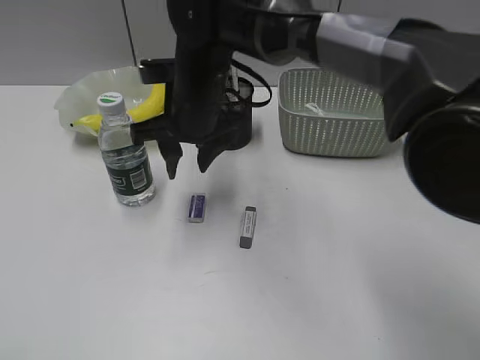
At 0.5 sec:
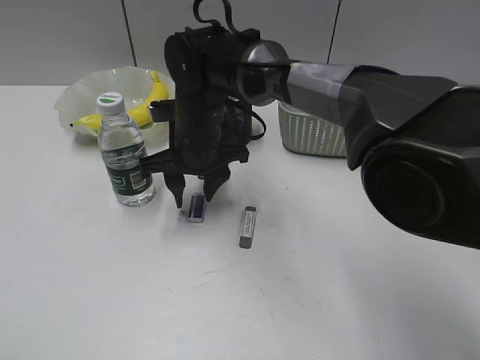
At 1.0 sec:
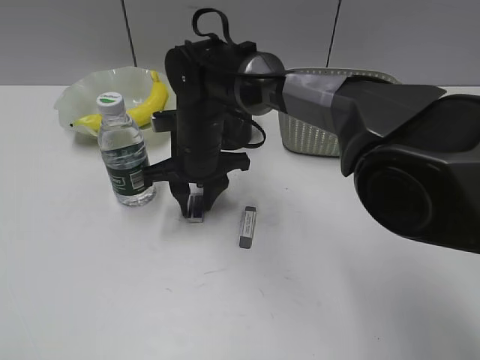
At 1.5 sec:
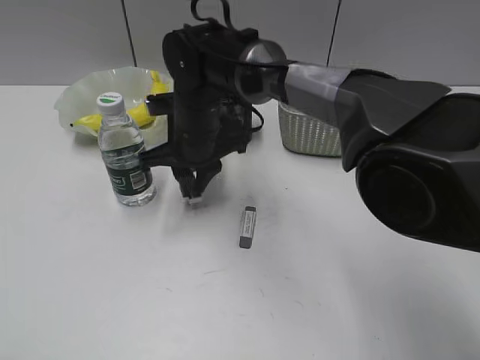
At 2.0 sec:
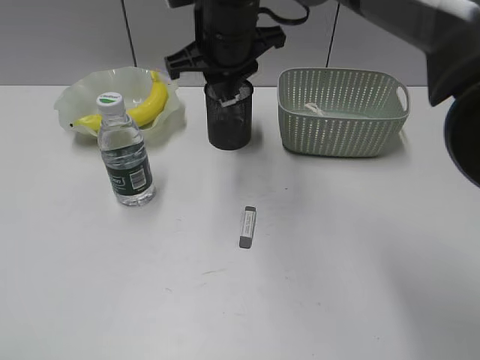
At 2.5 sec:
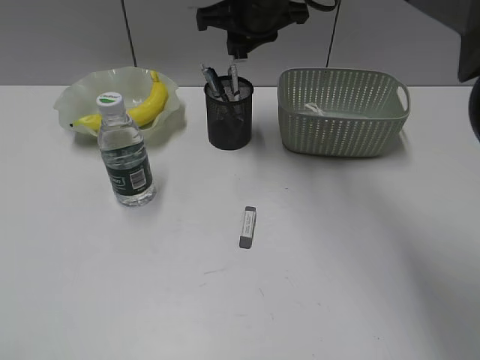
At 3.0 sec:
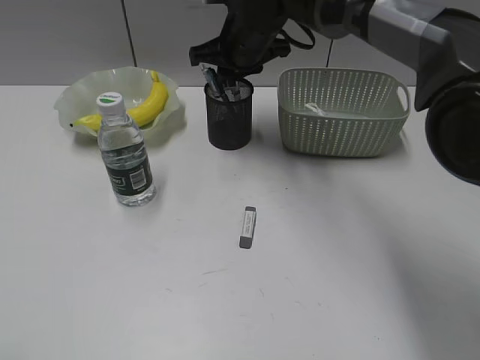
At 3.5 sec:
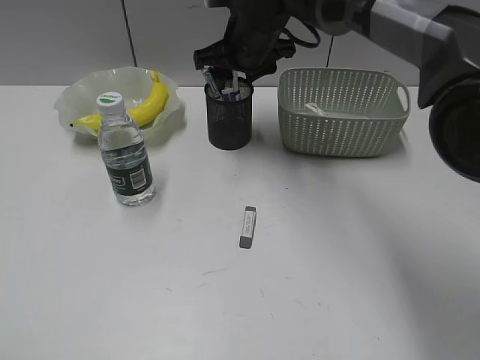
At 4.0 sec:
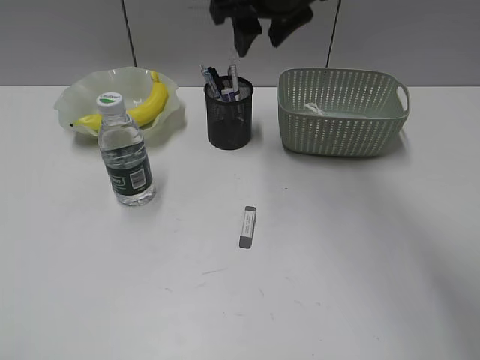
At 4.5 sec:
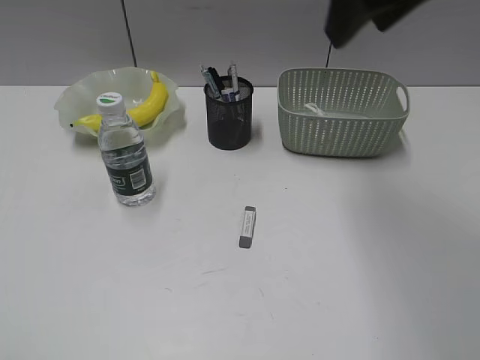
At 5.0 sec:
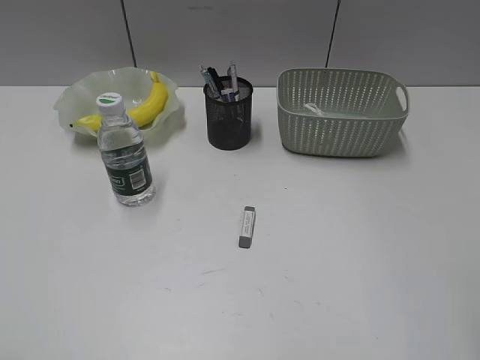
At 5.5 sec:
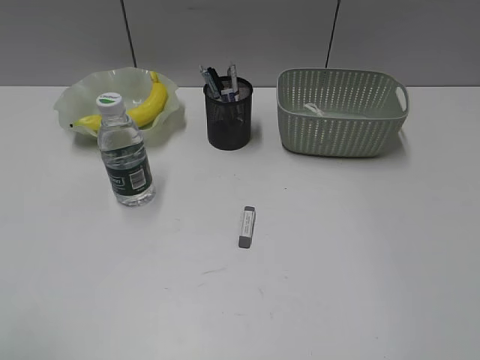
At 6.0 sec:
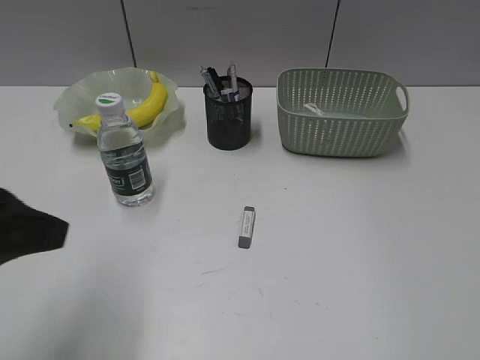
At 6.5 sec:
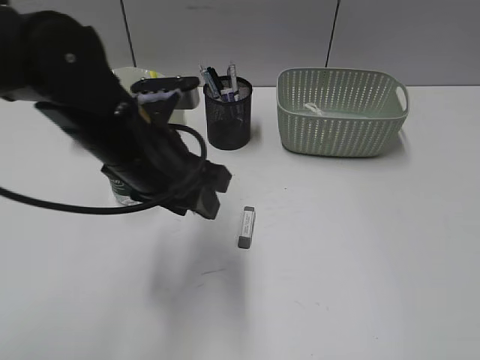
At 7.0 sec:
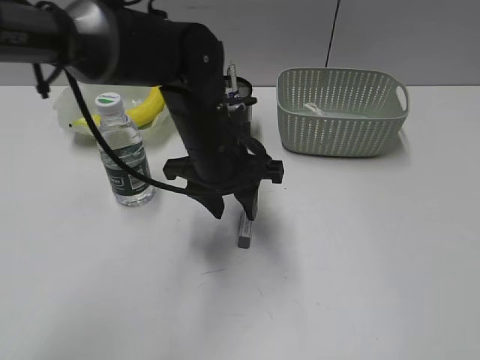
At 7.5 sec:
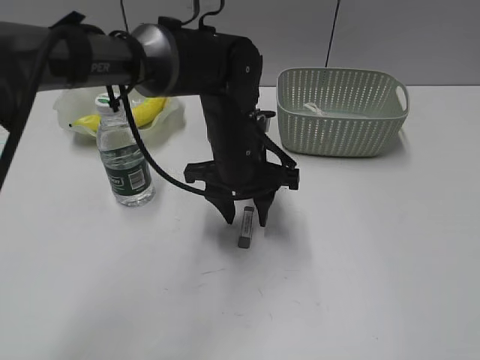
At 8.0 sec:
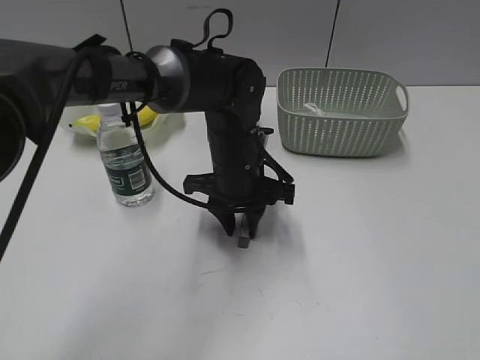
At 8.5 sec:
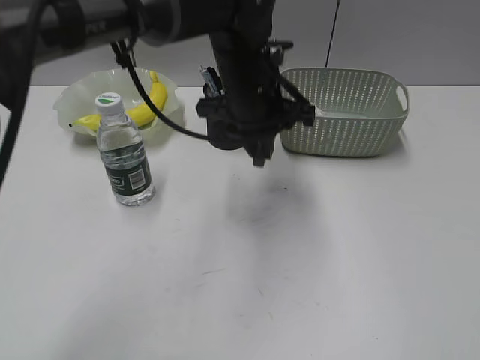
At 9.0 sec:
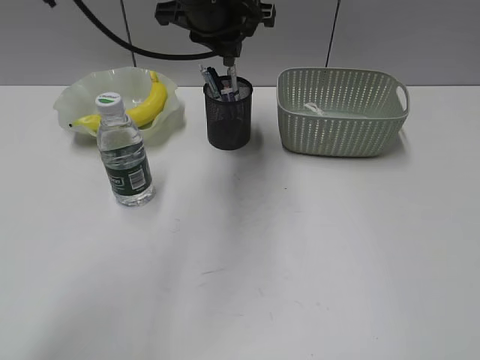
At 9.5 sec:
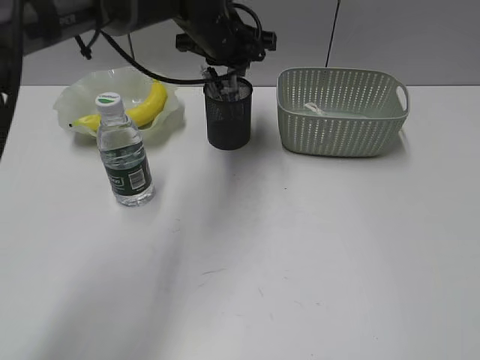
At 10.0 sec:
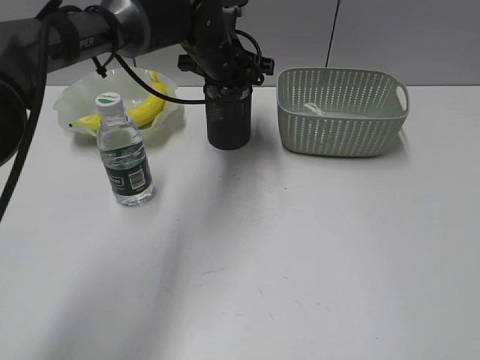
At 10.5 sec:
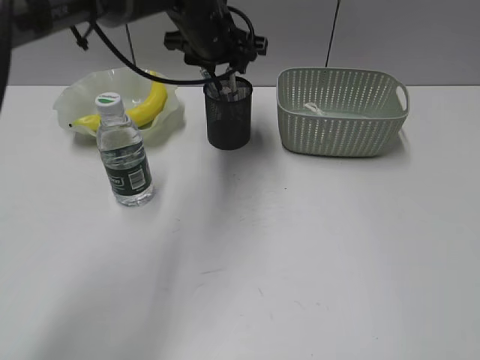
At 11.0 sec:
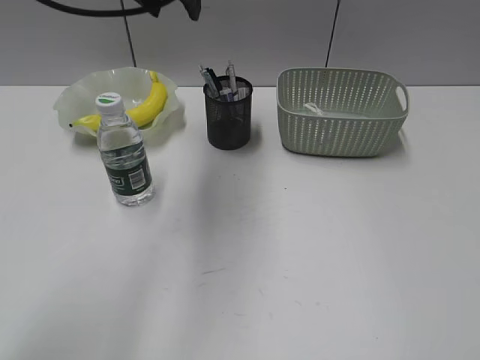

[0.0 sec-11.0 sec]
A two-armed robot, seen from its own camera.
Step, 1.5 sec to 3.0 sec: Place the eraser in pen holder with right gripper.
Step, 3.5 sec to 8.0 sec: Grasp the eraser with left gripper.
Step, 8.5 sec to 10.0 sec: Place the eraser in pen holder with left gripper.
0.0 sec to 2.0 sec: The right gripper travels upward by approximately 5 cm, and closes.
2.0 sec to 3.5 sec: The right gripper shifts roughly 5 cm forward, and opens its fingers.
3.5 sec to 5.5 sec: The right gripper heads backward and to the right, covering about 50 cm.
5.5 sec to 7.5 sec: The left gripper shifts roughly 50 cm forward, to the right and downward.
7.5 sec to 9.0 sec: The left gripper travels upward and forward by some 15 cm, and closes its fingers.
9.0 sec to 11.0 sec: The left gripper is displaced upward by some 5 cm, and opens.

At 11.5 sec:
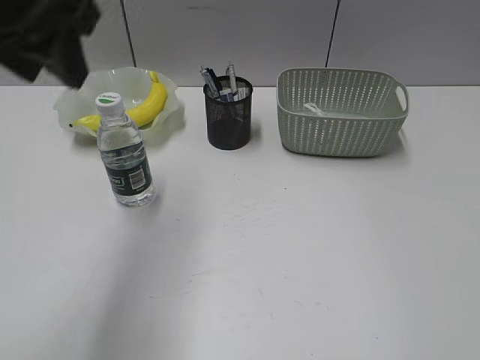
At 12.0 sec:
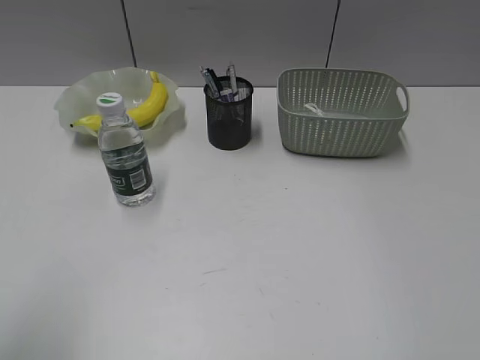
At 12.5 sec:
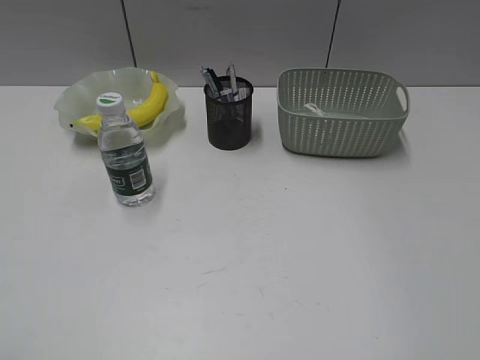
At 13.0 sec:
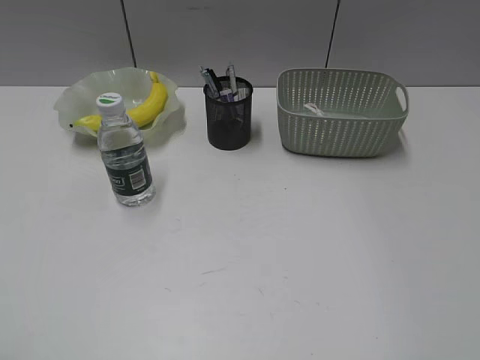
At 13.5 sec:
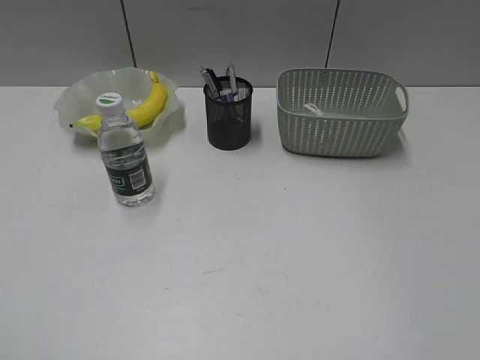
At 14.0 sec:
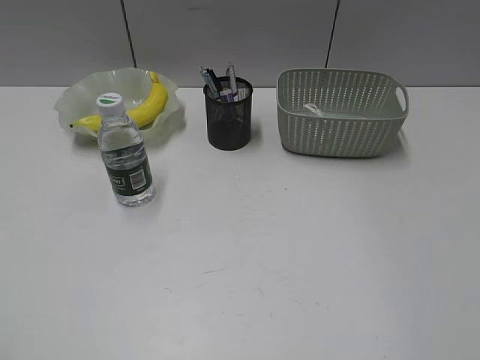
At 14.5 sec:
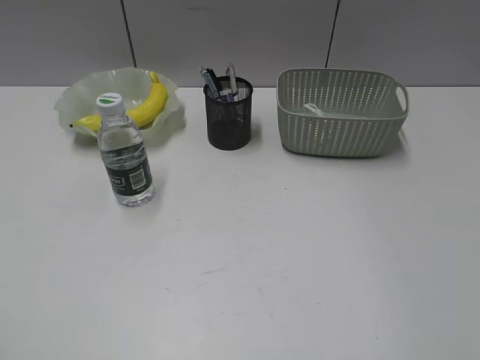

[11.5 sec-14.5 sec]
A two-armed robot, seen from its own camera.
11.5 sec to 13.0 sec: The left gripper moves backward and to the left, about 30 cm.

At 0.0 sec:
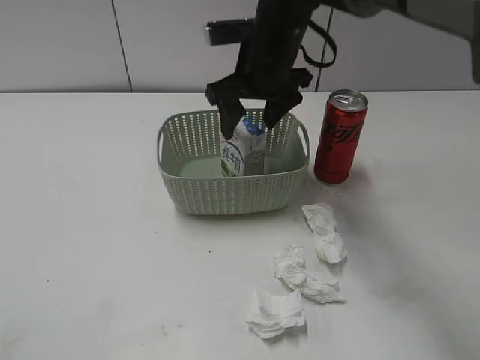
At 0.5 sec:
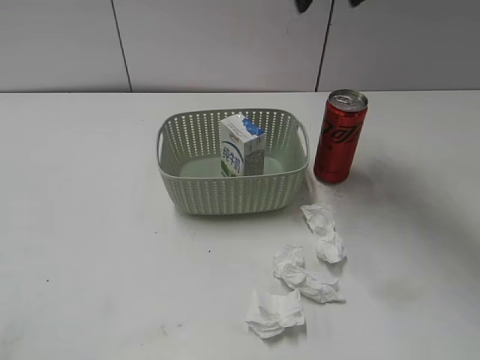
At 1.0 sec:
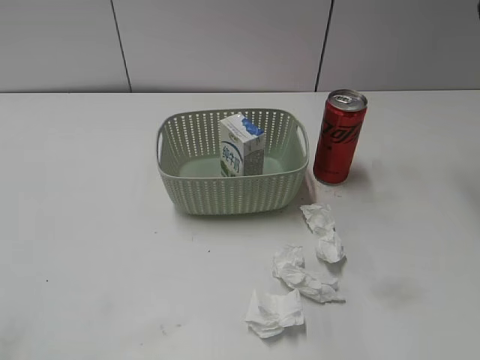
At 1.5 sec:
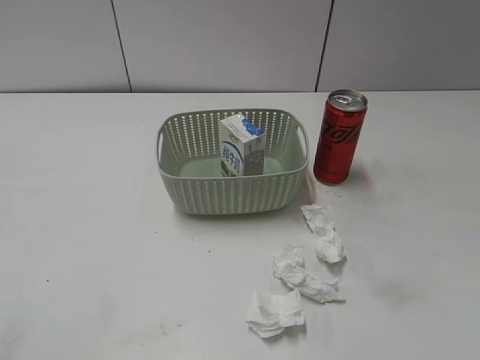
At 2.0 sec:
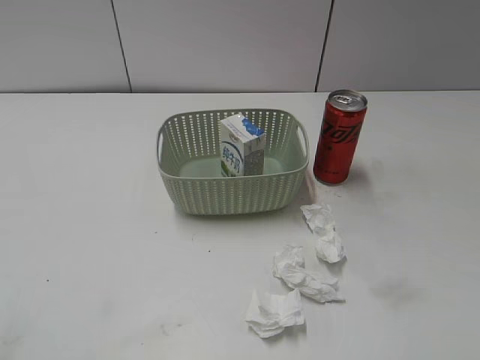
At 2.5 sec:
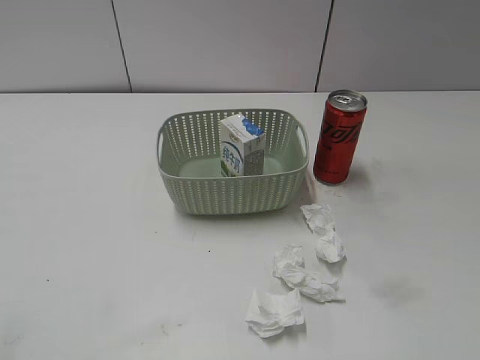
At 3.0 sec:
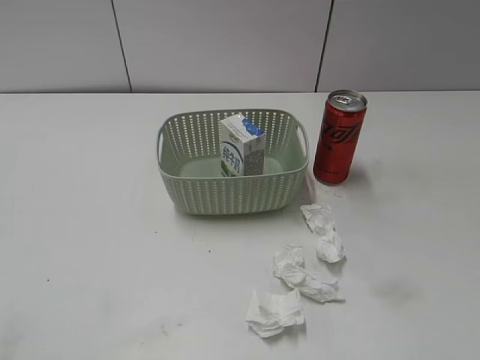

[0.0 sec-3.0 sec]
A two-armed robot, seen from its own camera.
0.0 sec to 1.5 sec: The right gripper is displaced to the right, backward and upward by some 35 cm.

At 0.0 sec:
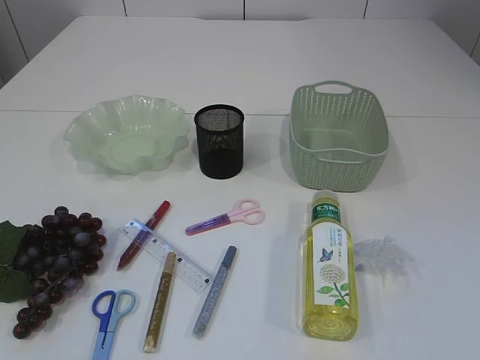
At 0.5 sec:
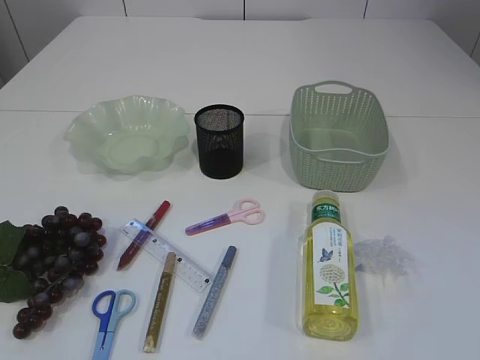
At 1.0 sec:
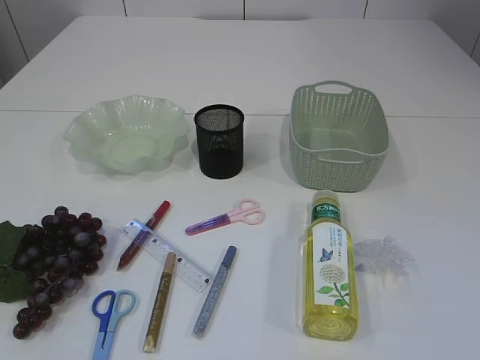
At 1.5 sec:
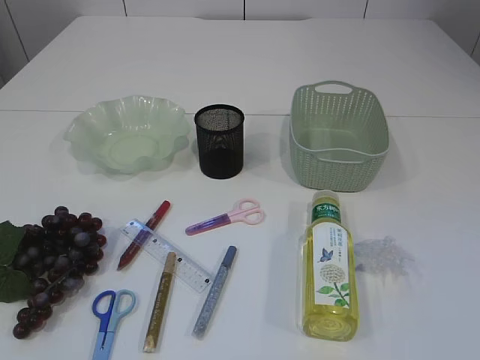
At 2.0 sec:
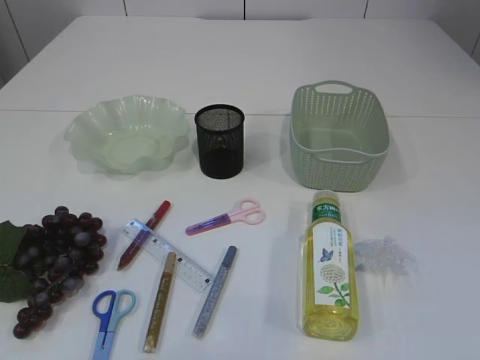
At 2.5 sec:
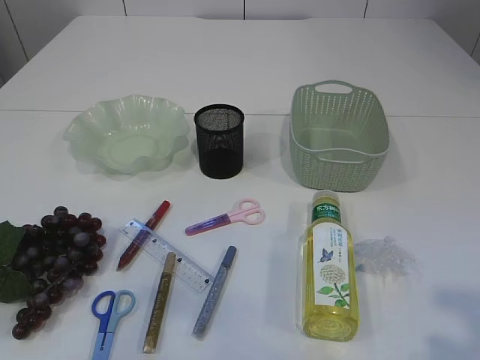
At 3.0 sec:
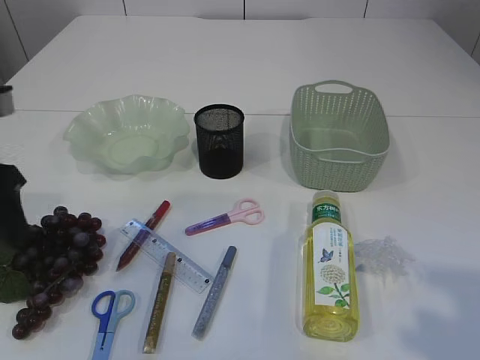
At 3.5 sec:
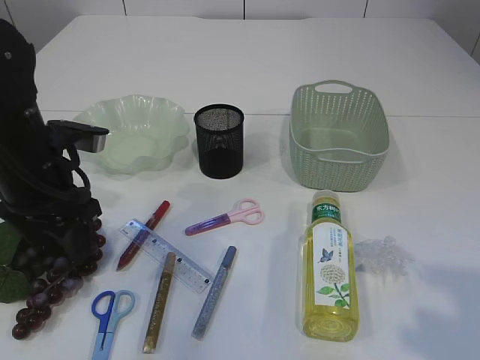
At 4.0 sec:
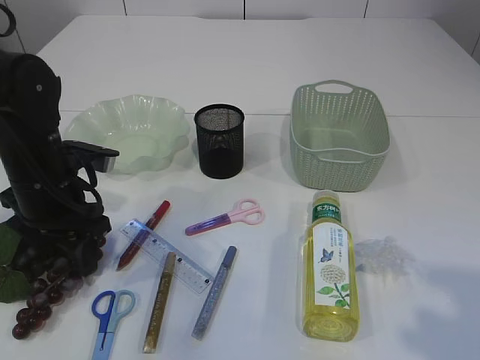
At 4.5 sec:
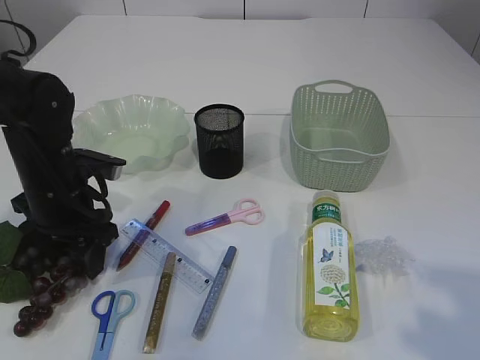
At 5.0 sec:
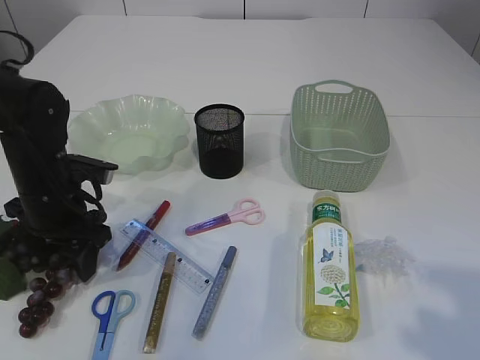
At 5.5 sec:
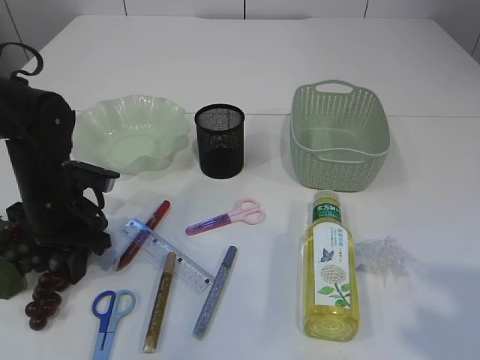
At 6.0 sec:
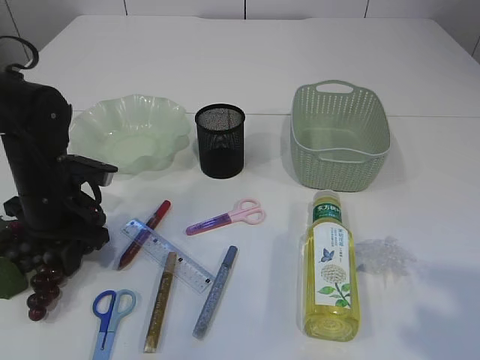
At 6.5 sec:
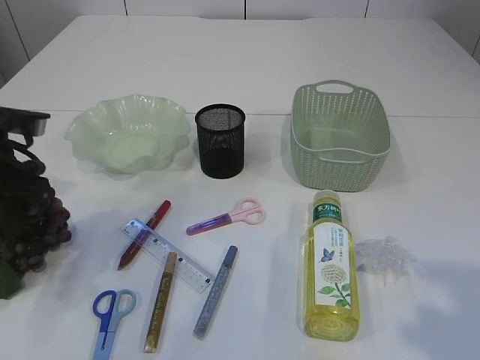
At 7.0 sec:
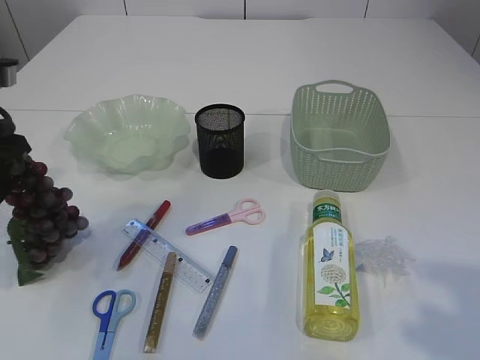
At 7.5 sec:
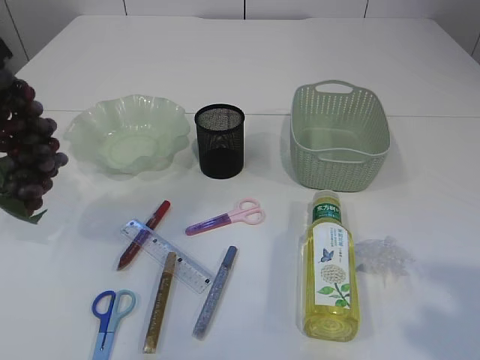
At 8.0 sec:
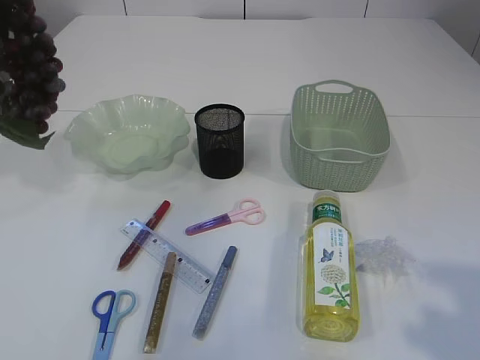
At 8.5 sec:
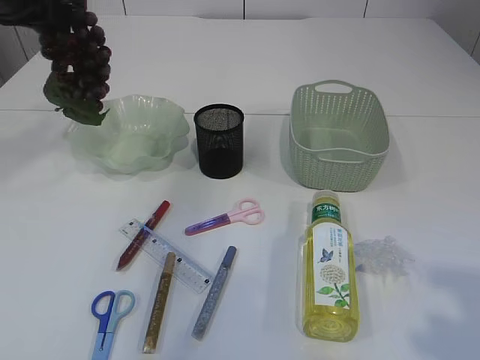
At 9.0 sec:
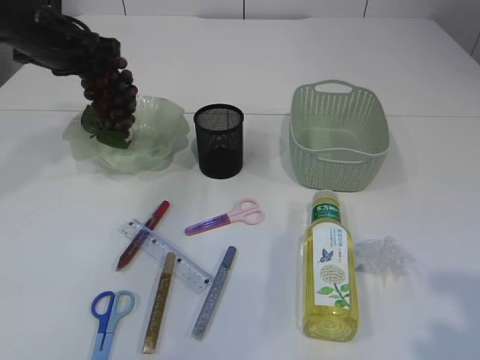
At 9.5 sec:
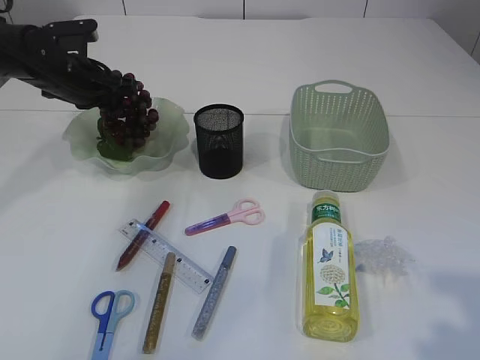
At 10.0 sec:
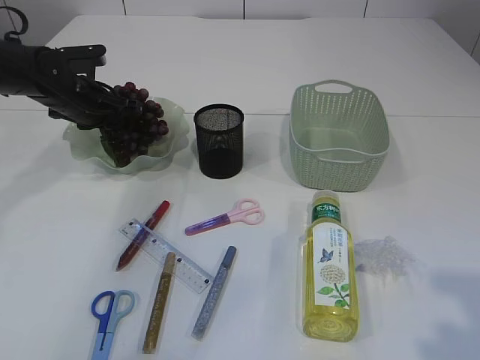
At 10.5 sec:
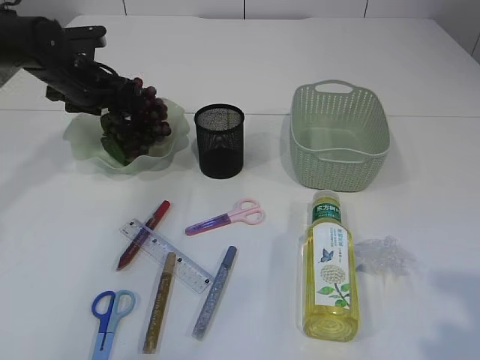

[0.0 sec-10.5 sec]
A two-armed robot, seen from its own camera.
Step, 0.0 sec to 7.5 sec: Pick up the grapes.
2.0 sec to 4.0 sec: The left gripper travels forward and downward by about 35 cm; the right gripper is displaced forward by roughly 10 cm.
4.0 sec to 6.5 sec: The left gripper heads to the left, covering approximately 5 cm, and closes its fingers.
6.5 sec to 8.5 sec: The left gripper shifts roughly 15 cm upward and forward.
8.5 sec to 10.5 sec: The left gripper shifts some 20 cm downward and forward, and opens up.
